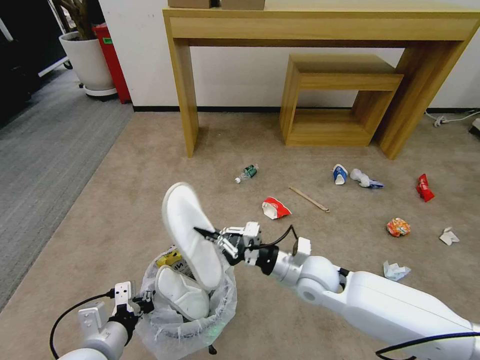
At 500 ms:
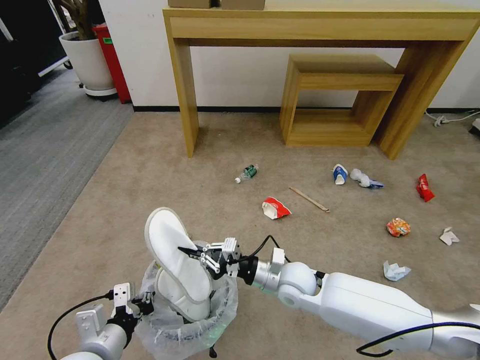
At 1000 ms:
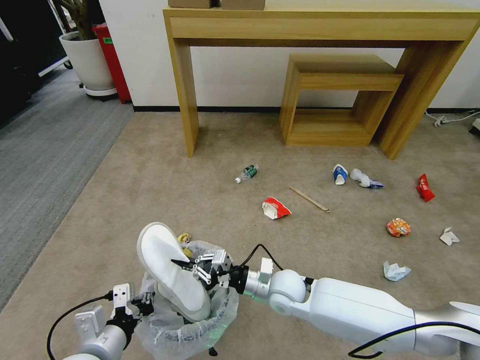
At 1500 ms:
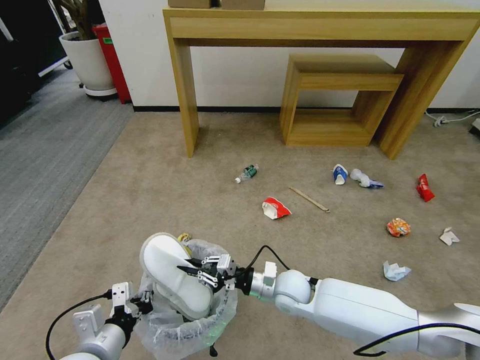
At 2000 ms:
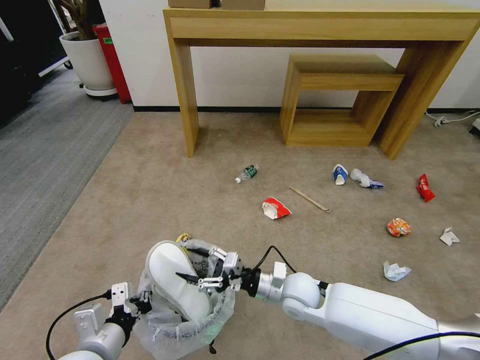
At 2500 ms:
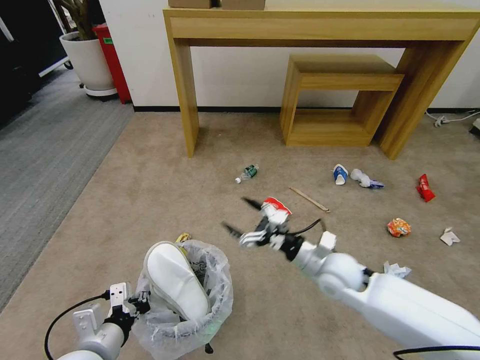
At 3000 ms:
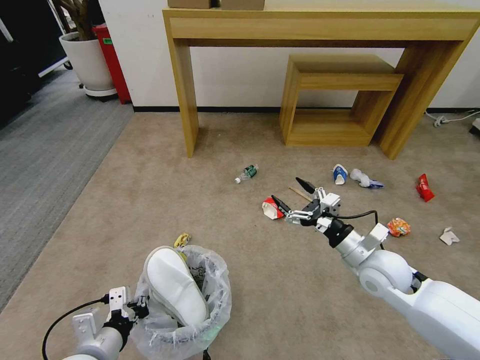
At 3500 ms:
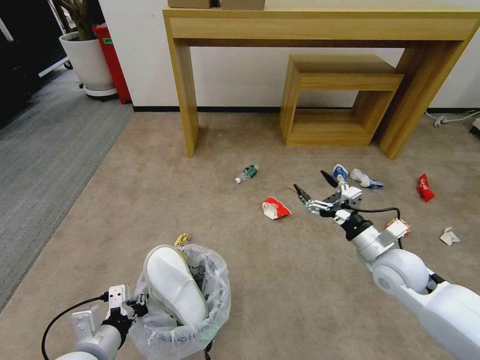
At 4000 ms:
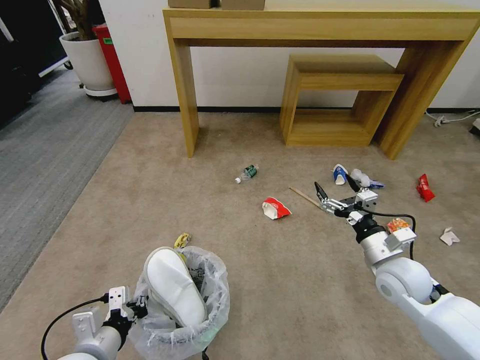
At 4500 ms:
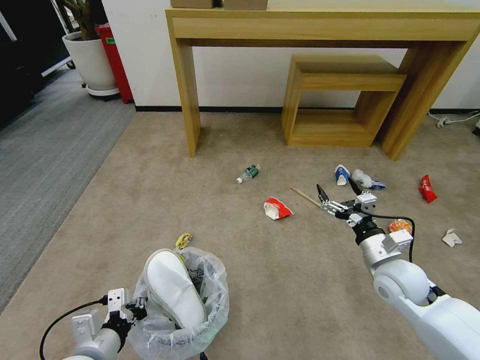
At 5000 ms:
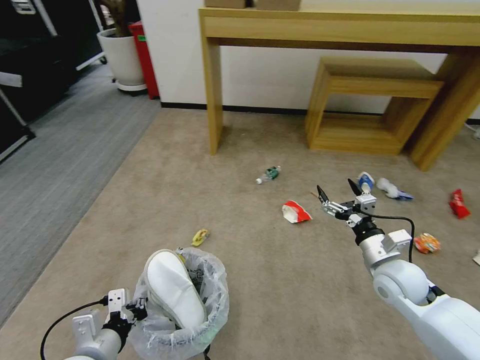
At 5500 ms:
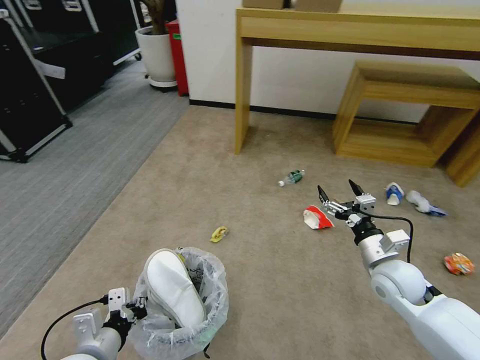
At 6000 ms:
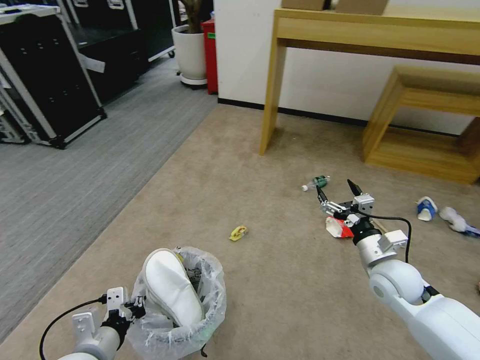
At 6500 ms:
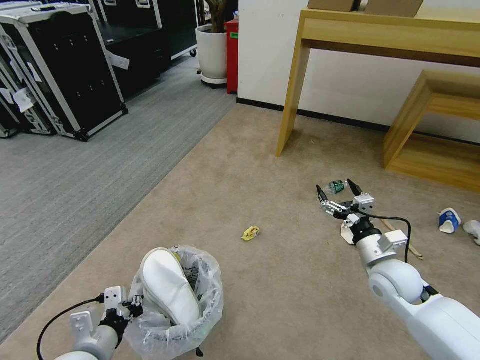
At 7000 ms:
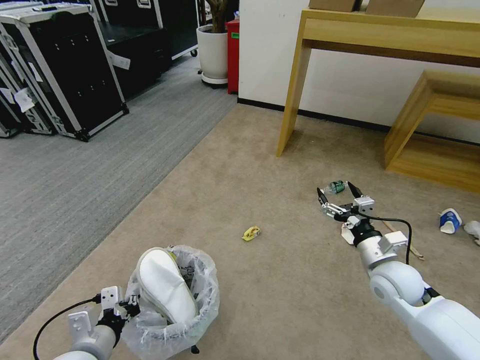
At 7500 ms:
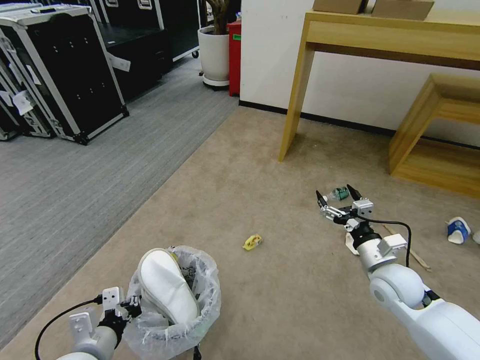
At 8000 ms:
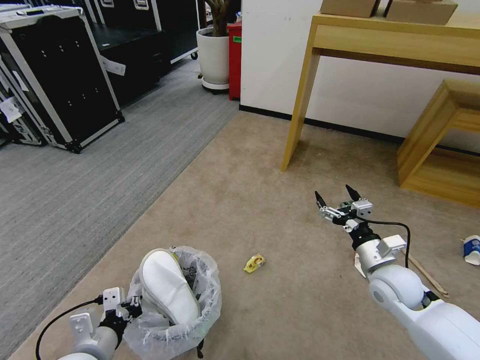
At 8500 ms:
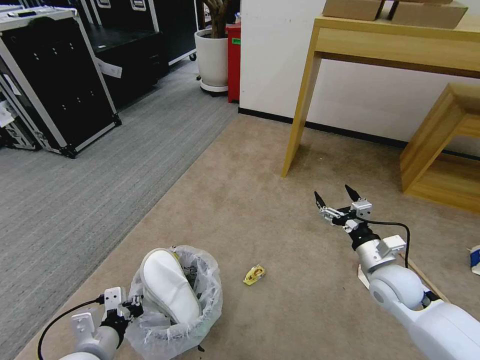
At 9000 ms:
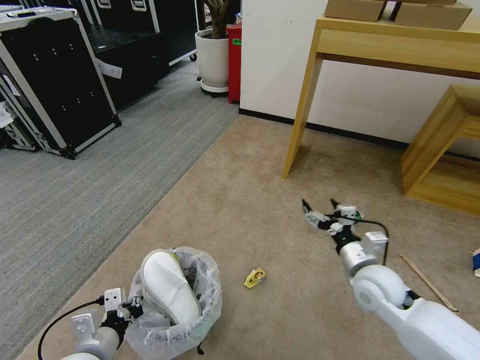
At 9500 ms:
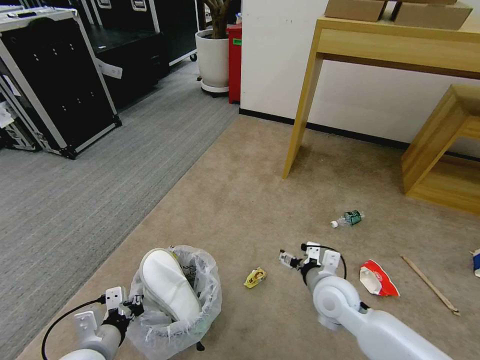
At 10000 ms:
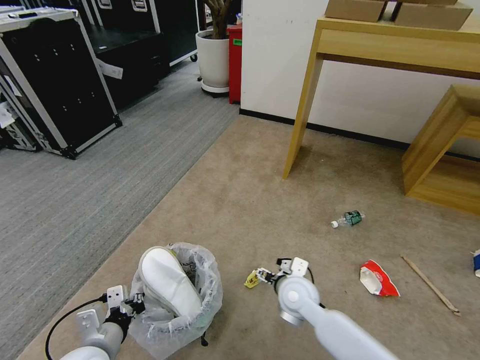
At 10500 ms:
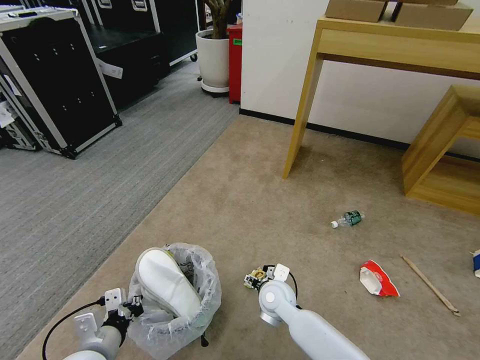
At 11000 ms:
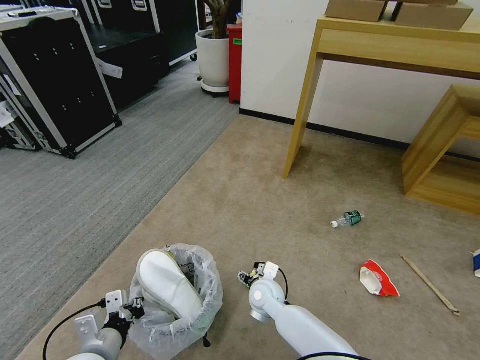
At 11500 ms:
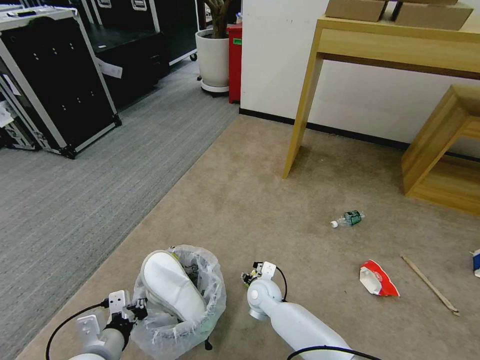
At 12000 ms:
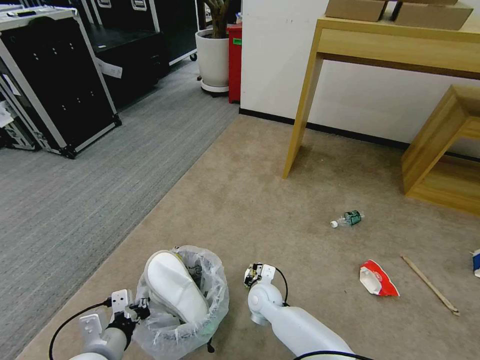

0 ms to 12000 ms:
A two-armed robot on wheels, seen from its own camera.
Task of the whole recording: Pick up the trash bin and place the garbage on the floor into it.
0 ms to 2000 ms: The right gripper heads downward, covering some 5 cm, and opens up.
2000 ms to 4000 ms: The right gripper moves to the right, roughly 20 cm.
8000 ms to 10000 ms: The right gripper heads to the left, covering about 20 cm.
10000 ms to 12000 ms: The right gripper moves downward and to the left, approximately 15 cm, and closes.

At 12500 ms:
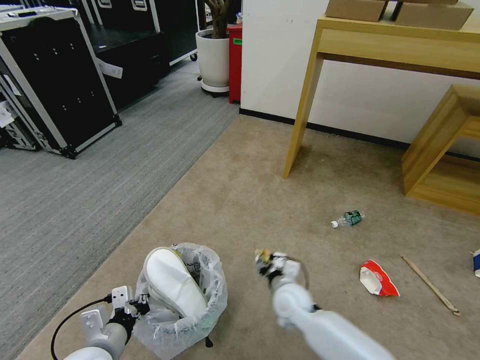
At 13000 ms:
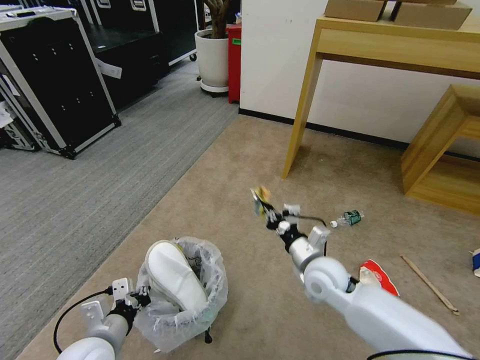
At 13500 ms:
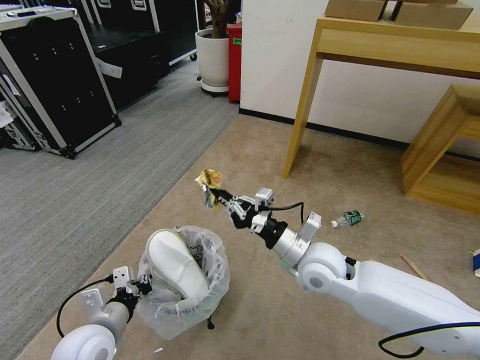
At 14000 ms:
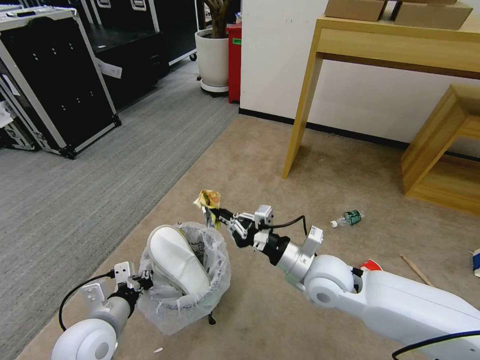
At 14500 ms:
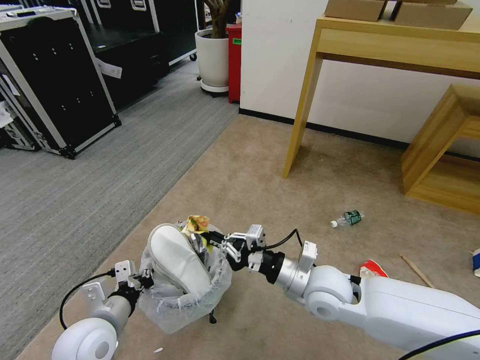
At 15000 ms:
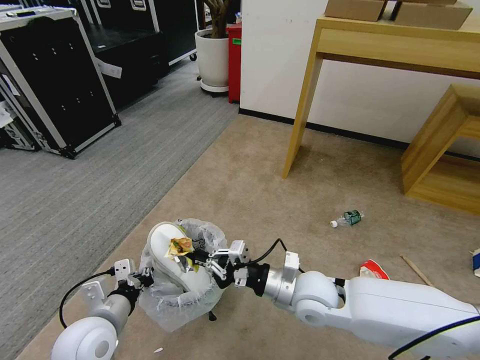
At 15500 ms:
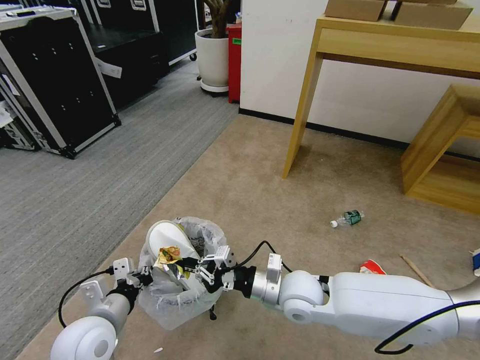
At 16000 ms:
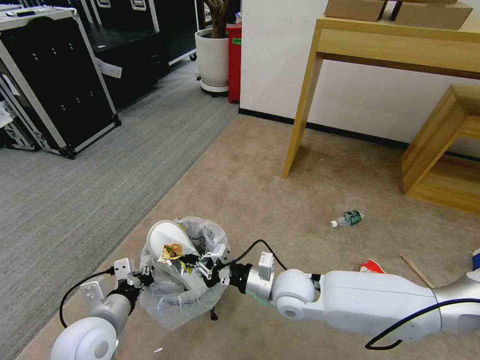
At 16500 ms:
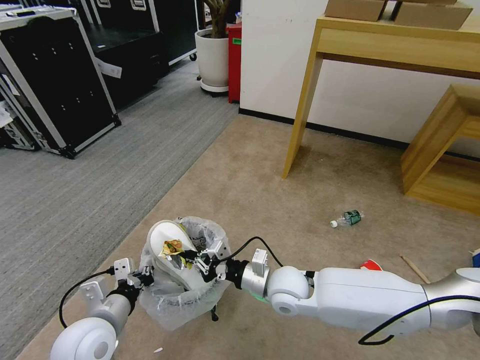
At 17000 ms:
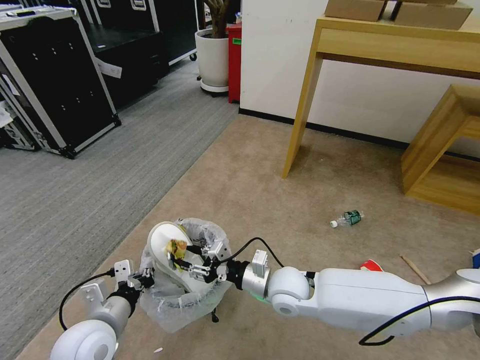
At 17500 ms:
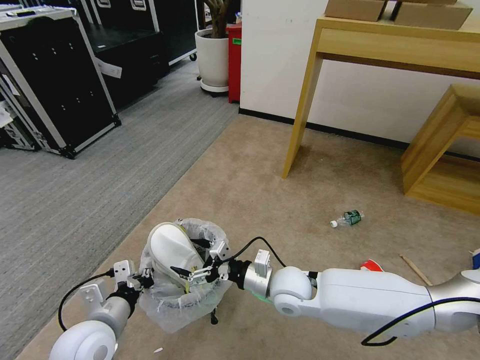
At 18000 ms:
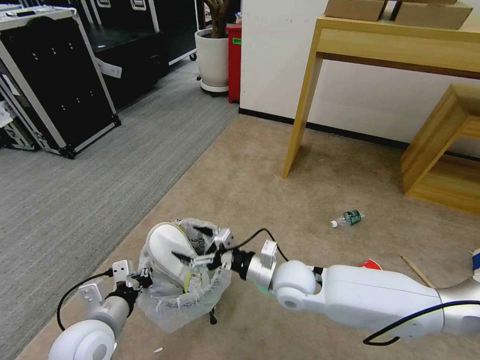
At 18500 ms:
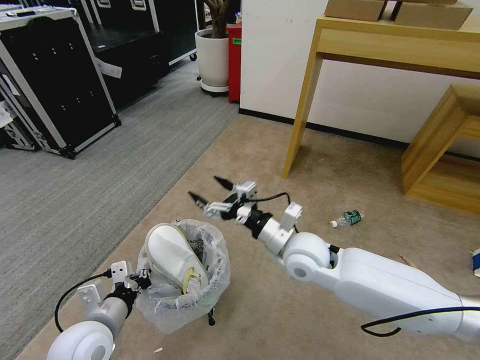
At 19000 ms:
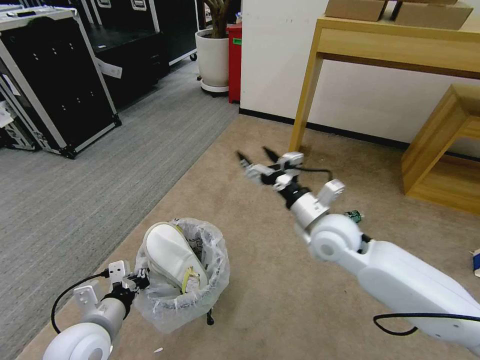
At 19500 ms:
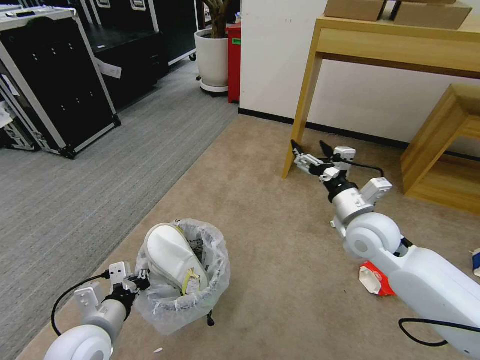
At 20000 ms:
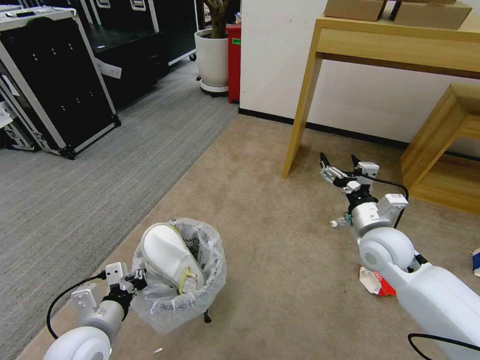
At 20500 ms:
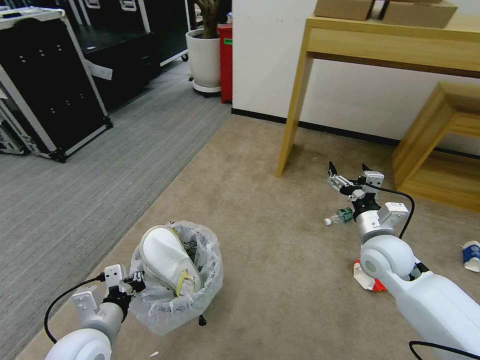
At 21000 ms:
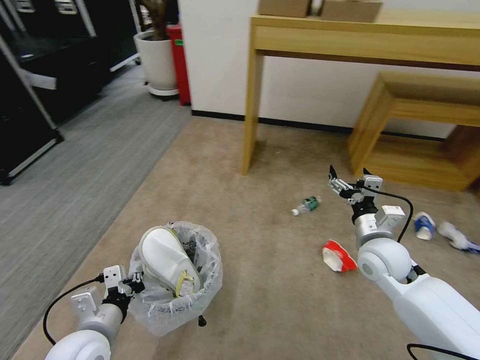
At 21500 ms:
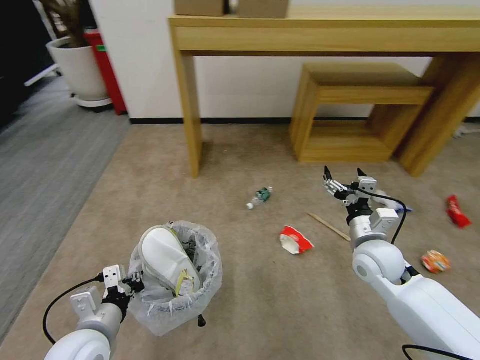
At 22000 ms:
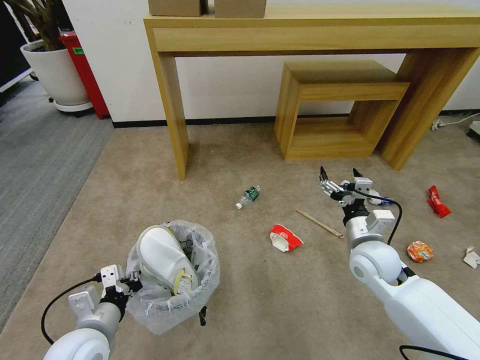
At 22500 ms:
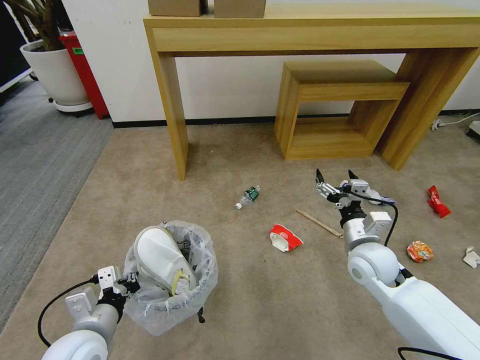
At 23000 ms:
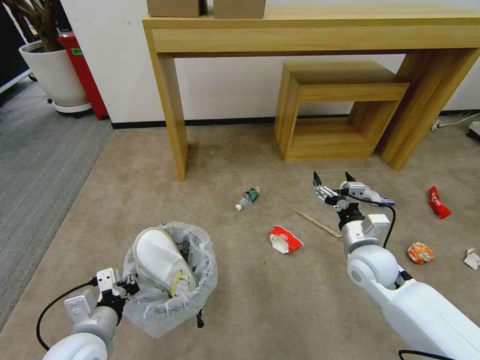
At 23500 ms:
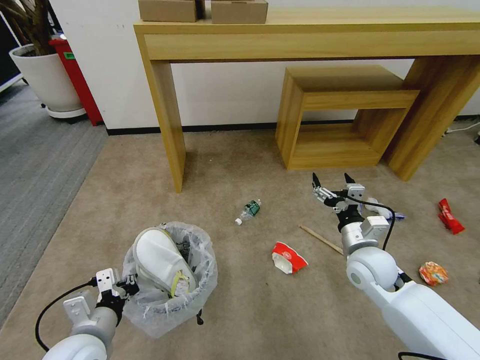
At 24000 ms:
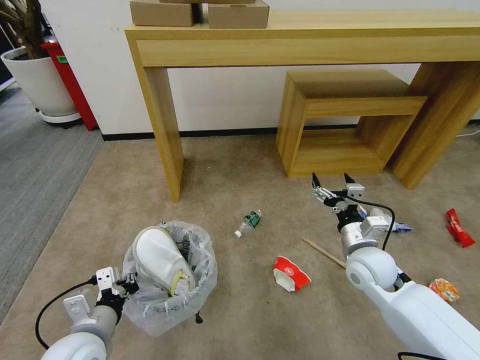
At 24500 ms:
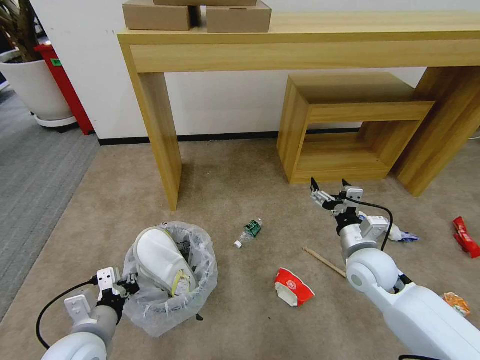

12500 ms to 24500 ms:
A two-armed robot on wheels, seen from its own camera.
Task of the whole recording: Pick up the trash bin and place the garbage on the floor into it.
12500 ms to 14500 ms: The right gripper heads upward, covering approximately 15 cm, while the left gripper changes place by approximately 5 cm.
14500 ms to 16500 ms: The right gripper moves to the left and downward, some 10 cm.
16500 ms to 18500 ms: The right gripper moves upward, about 10 cm, and opens up.
18500 ms to 20500 ms: The right gripper heads to the right, covering approximately 20 cm.

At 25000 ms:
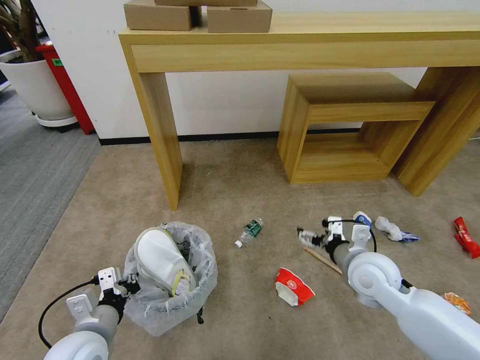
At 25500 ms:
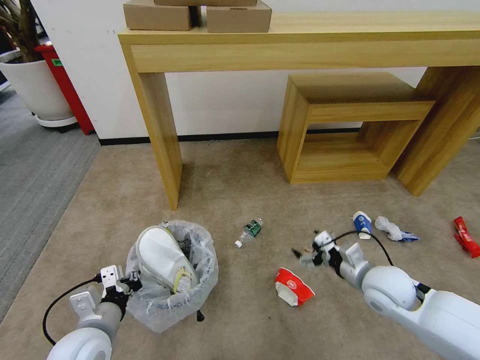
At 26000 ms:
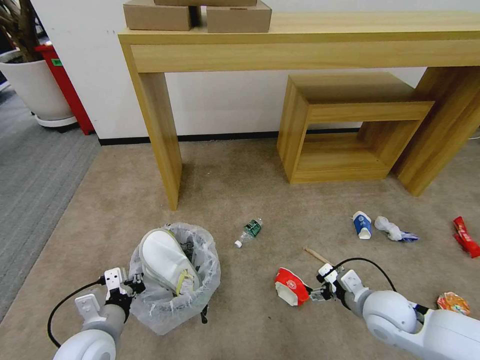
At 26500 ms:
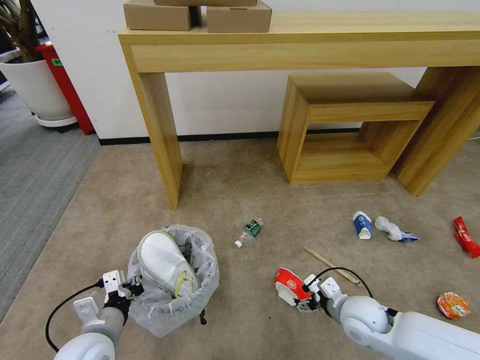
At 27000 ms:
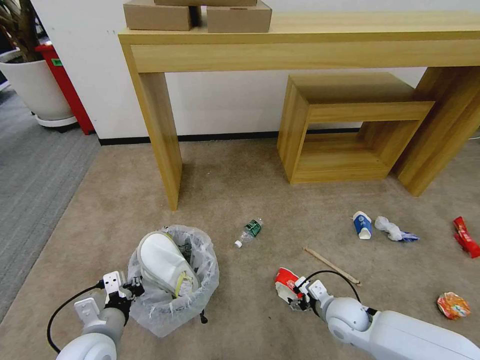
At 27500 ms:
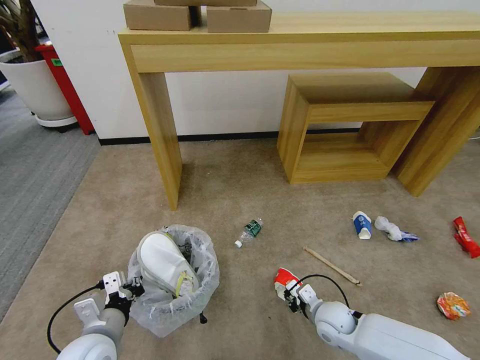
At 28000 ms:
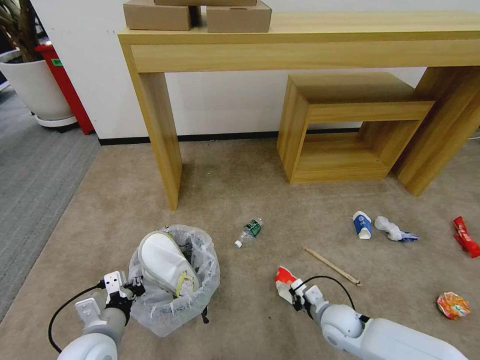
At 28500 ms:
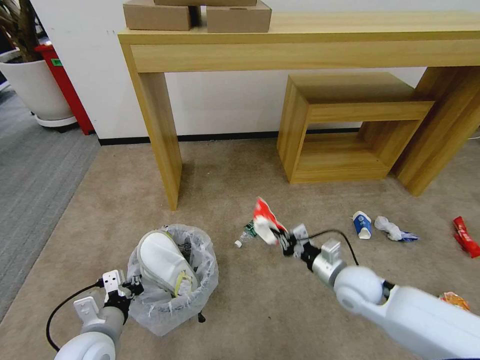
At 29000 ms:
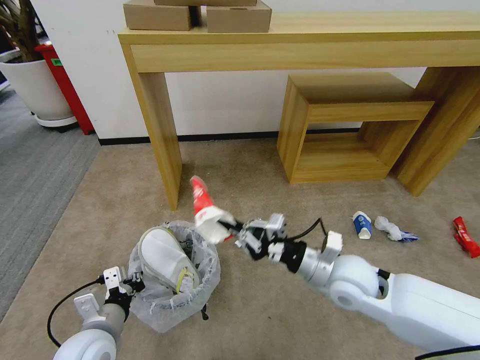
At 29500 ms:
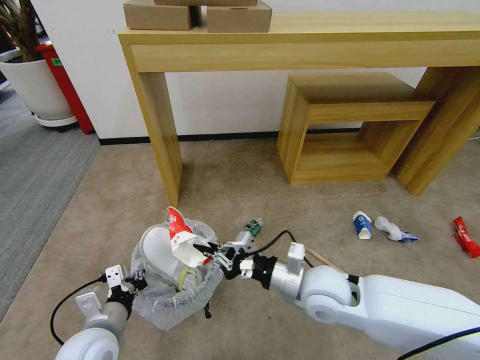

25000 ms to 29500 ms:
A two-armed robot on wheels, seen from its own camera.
Task of the whole recording: Pick up the trash bin and place the garbage on the floor into it.
25000 ms to 27000 ms: The right gripper moves downward, about 15 cm.
27000 ms to 29500 ms: The right gripper moves upward and to the left, approximately 20 cm, and closes its fingers.
